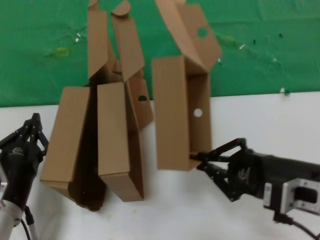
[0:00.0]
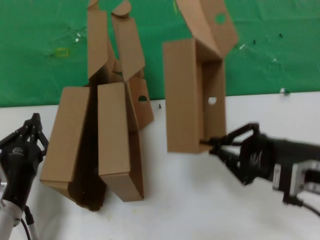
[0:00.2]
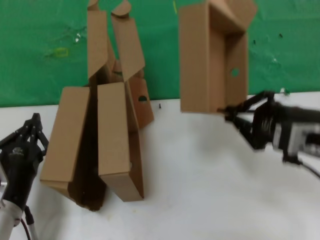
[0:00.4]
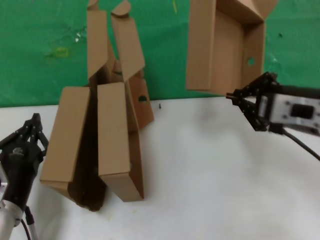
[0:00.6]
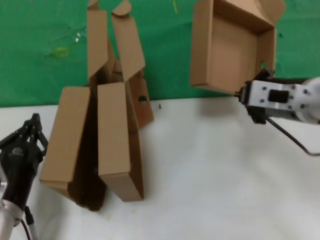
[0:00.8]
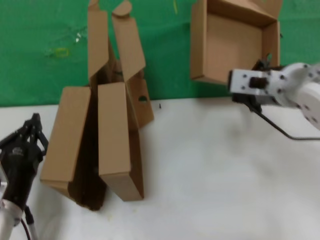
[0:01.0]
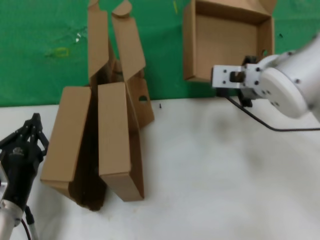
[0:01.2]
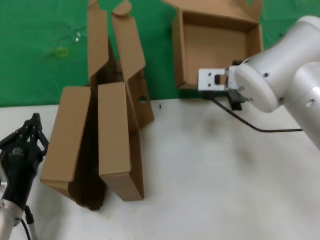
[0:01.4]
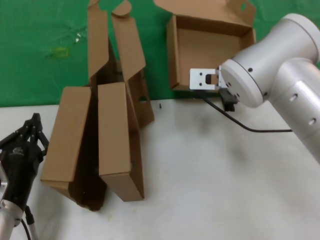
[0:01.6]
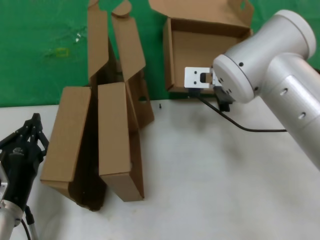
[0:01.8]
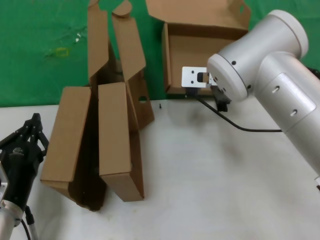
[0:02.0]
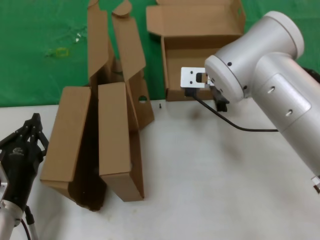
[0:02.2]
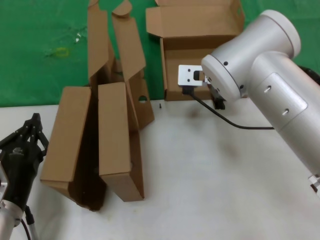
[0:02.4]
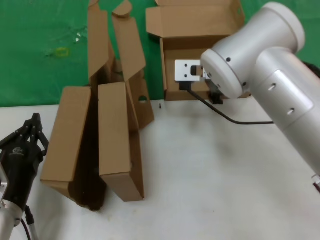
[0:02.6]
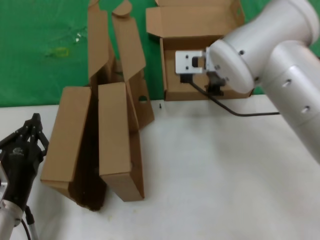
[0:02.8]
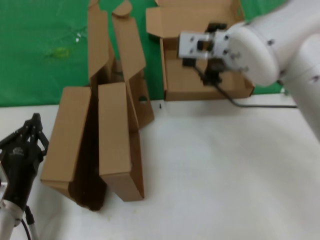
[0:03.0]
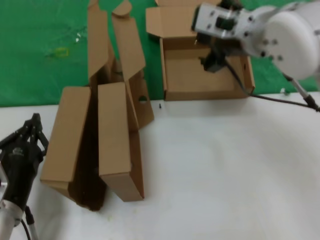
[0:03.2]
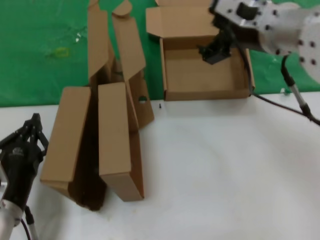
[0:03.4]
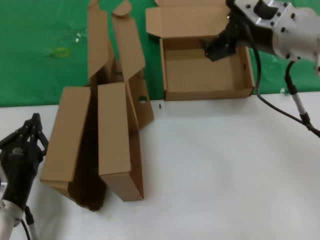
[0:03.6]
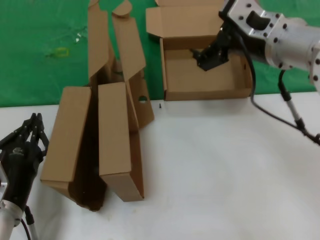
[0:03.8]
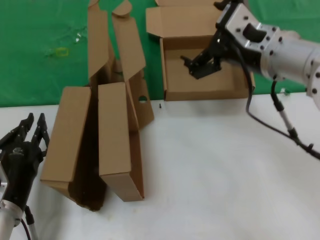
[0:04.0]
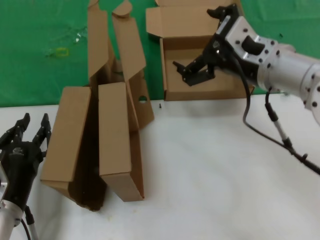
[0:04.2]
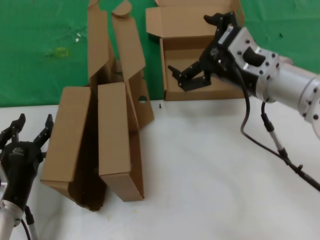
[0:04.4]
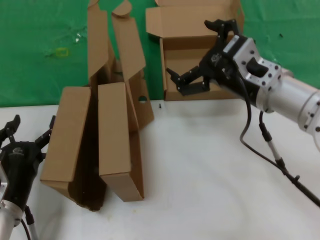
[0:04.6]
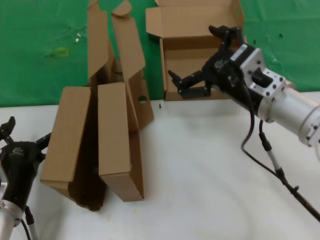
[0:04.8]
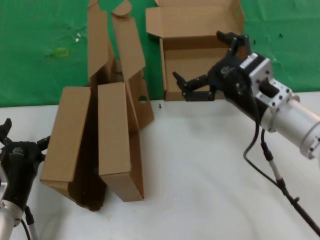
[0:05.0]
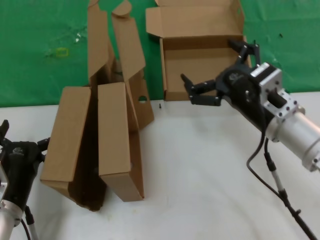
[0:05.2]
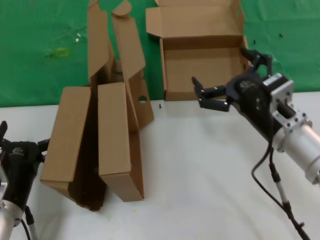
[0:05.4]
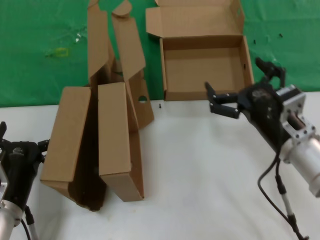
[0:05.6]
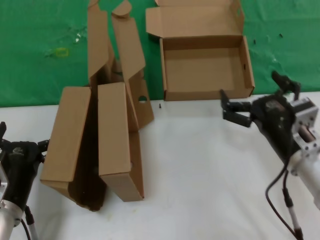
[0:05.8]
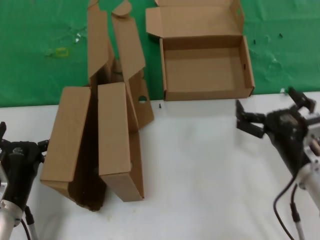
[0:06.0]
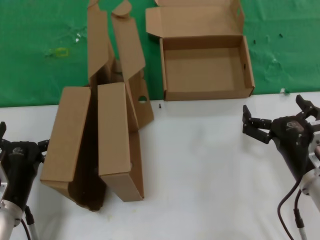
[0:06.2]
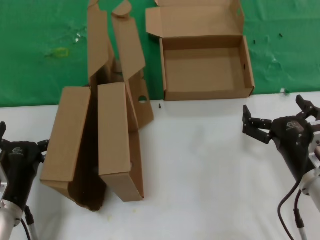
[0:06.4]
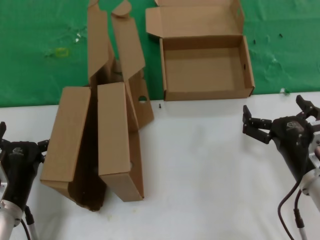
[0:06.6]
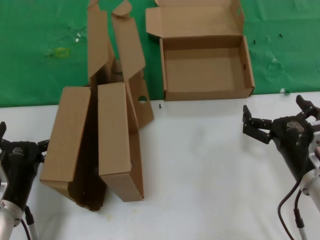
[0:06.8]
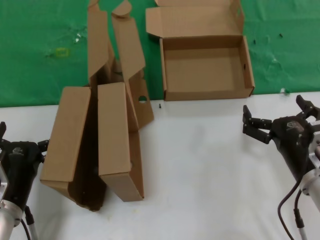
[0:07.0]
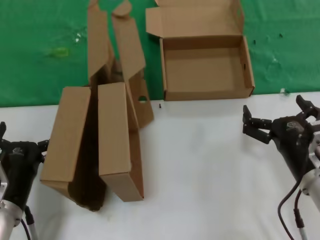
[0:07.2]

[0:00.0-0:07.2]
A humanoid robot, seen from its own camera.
Task of the whole recording: pick up the paper box and put it at the back.
Step, 0:00.0 to 0:02.8: Place the paper box on the table.
0:00.0 to 0:01.4: The right hand travels forward, to the left and upward by about 25 cm.
0:01.4 to 0:02.8: The right hand changes place by about 5 cm.
0:02.8 to 0:04.4: The right hand heads to the right and backward, covering approximately 10 cm.
0:04.4 to 0:05.8: The right hand heads downward and backward, covering some 15 cm.
0:05.8 to 0:07.2: The hands make only small movements.
